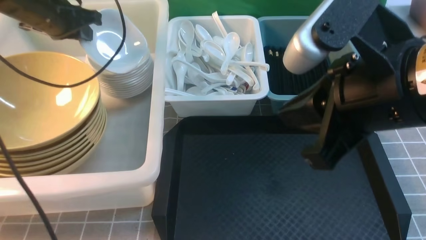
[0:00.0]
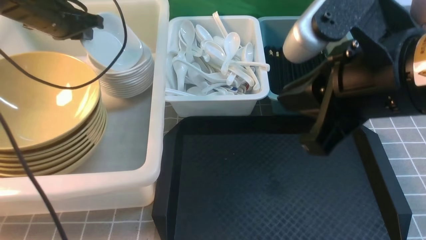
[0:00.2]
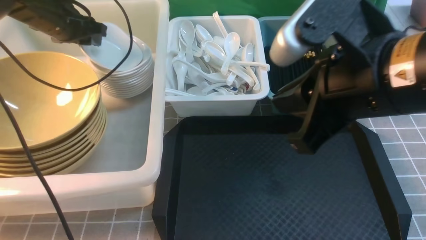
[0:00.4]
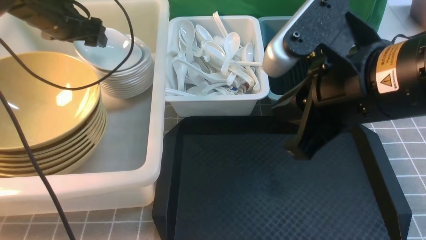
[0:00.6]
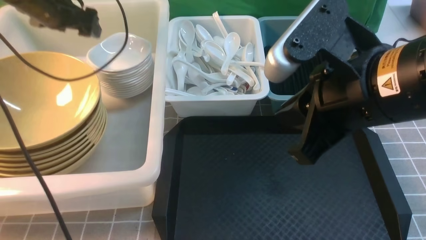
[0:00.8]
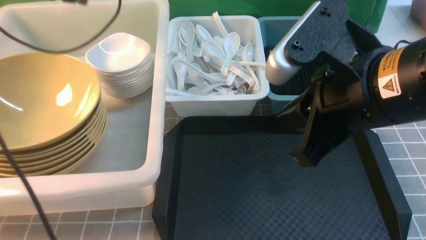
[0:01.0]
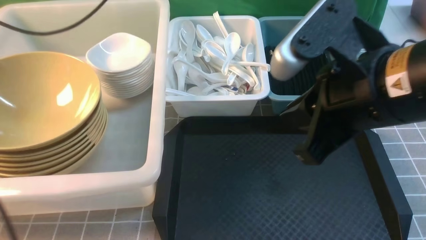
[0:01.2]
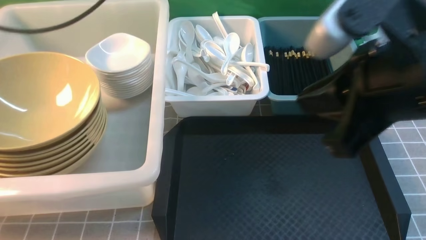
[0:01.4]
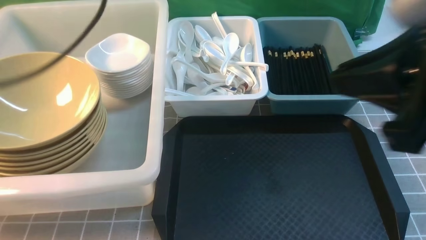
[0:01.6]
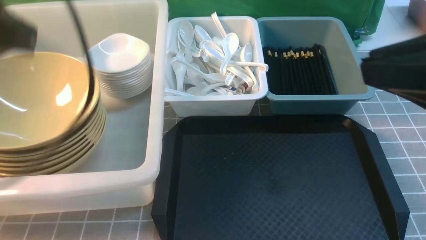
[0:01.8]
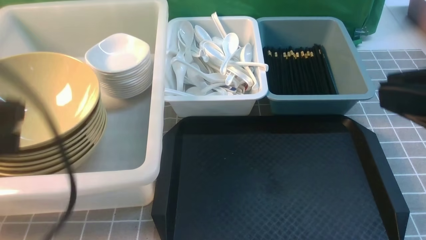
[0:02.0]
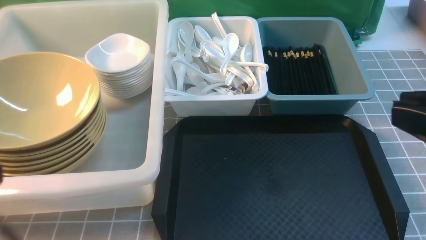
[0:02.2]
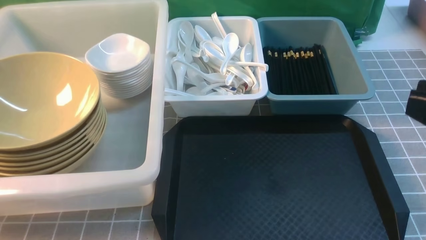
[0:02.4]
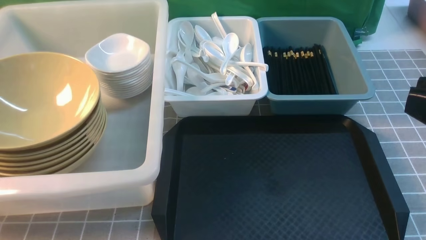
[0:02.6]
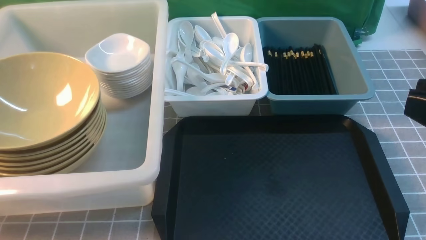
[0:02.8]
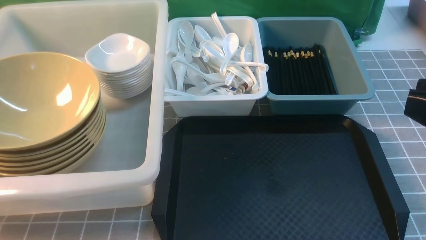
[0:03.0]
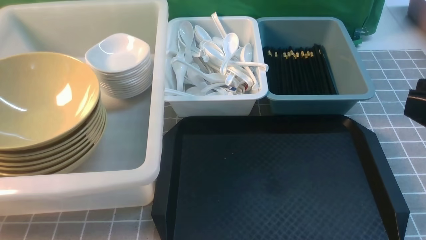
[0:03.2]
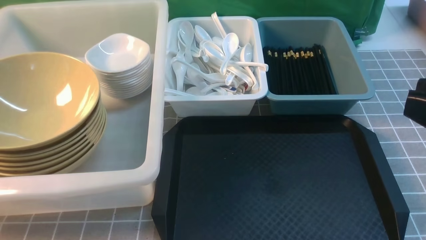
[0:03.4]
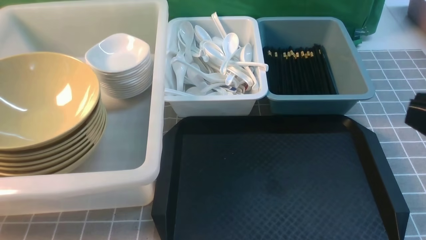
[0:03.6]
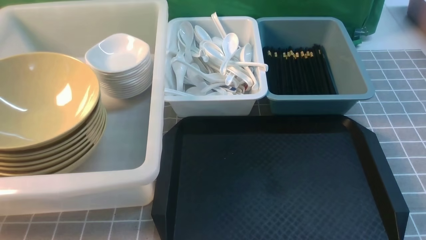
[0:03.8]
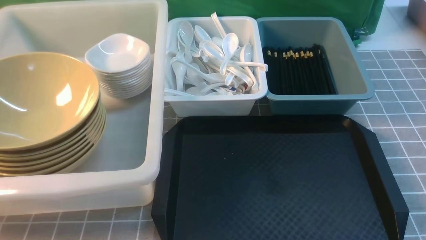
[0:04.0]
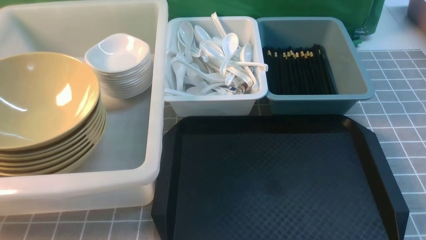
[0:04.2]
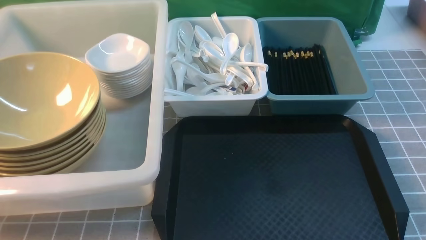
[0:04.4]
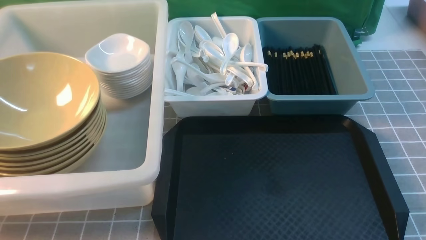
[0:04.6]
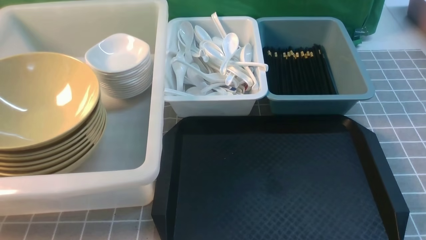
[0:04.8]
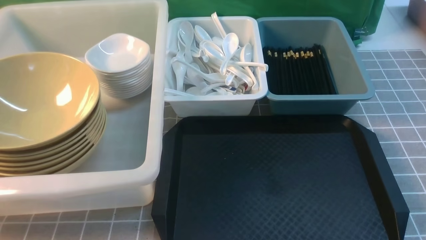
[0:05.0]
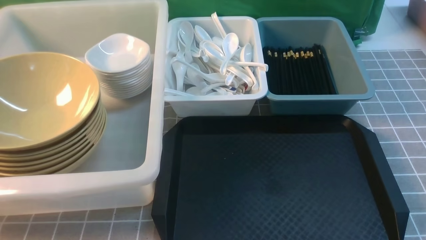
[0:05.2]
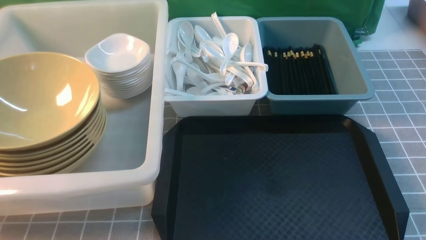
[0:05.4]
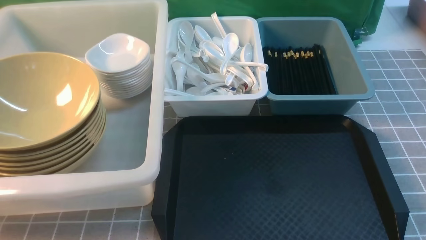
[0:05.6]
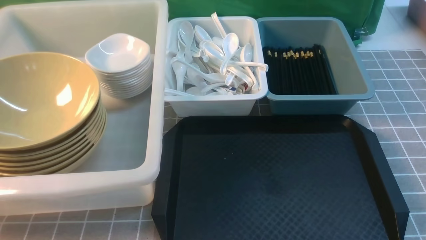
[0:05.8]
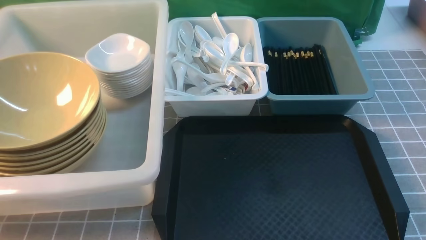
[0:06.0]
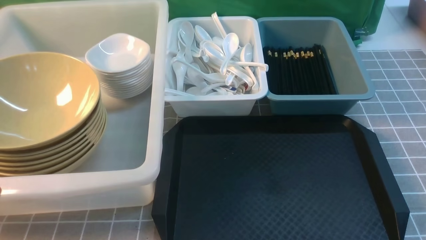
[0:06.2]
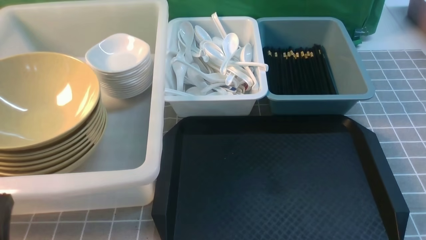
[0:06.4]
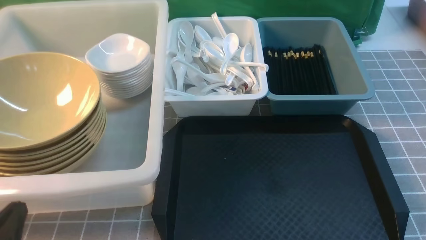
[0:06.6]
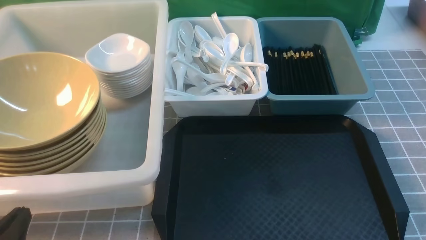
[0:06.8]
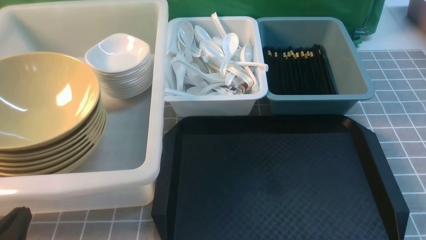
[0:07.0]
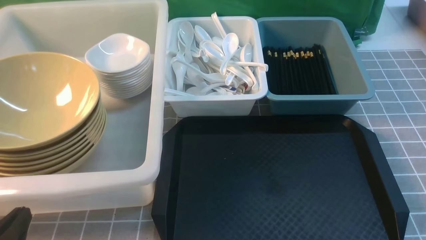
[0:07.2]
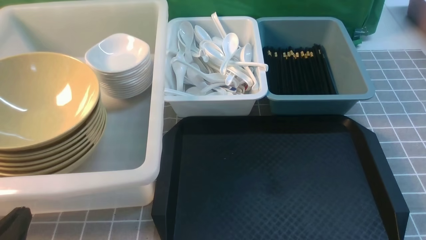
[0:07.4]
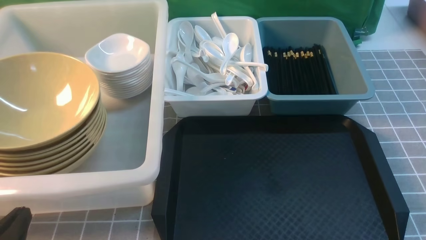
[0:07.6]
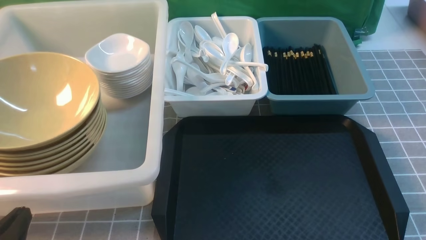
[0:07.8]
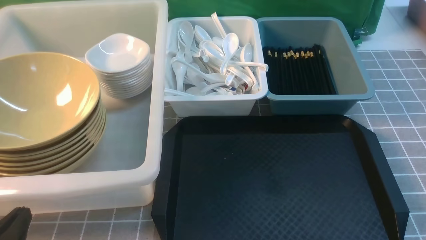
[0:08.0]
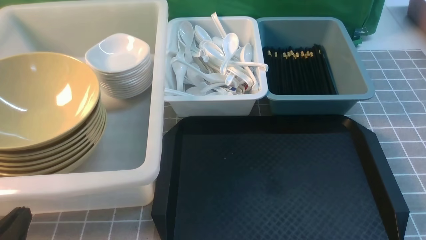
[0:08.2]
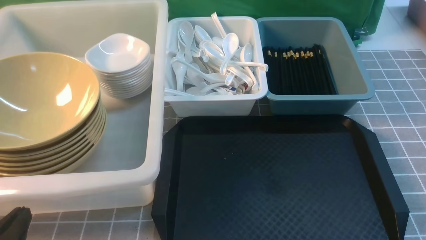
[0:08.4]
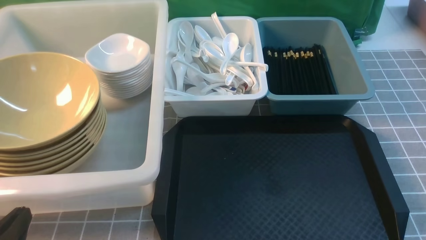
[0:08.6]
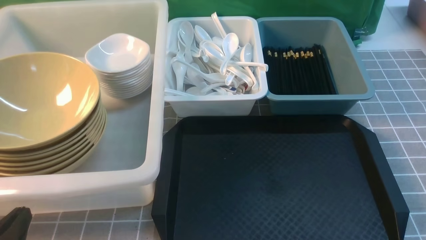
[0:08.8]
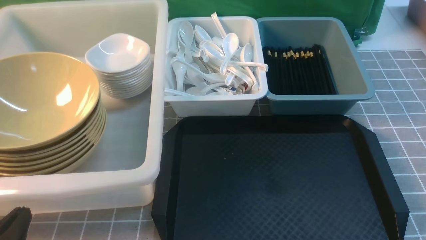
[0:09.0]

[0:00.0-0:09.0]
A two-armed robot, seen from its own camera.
Task of the whole recording: on grey table put chopsticks spoon bowls plates into blue grey white boxes.
0:00.0 to 0:01.6: The right gripper ends up approximately 5 cm from where it was; the left gripper travels backward and upward by about 25 cm, and opens, then closes once more.
0:01.6 to 0:03.0: The right gripper moves backward and to the right, some 10 cm. The left gripper travels backward and downward by about 30 cm.
0:03.0 to 0:04.4: The right gripper travels downward by some 20 cm.
0:06.0 to 0:07.6: The left gripper shifts roughly 10 cm downward.
0:07.6 to 0:09.0: Neither gripper changes place.
